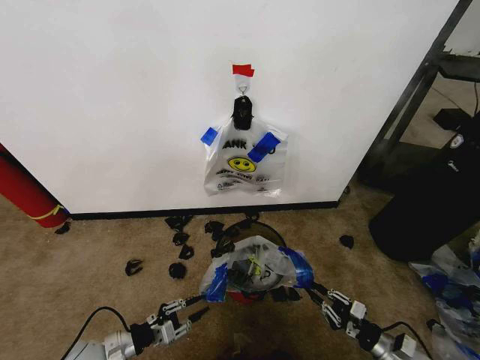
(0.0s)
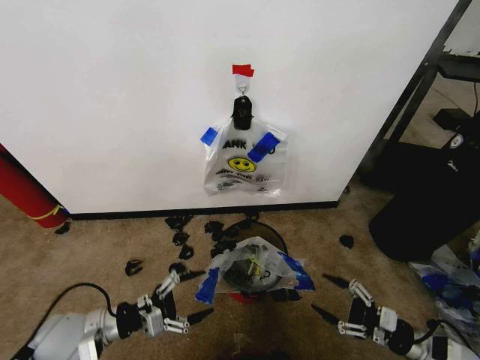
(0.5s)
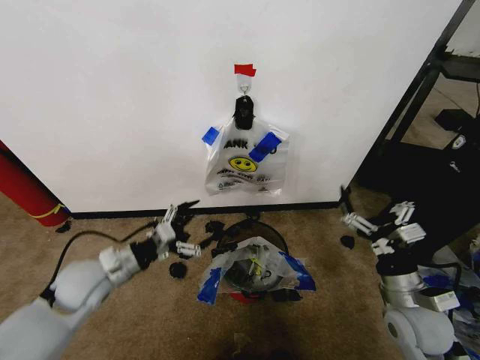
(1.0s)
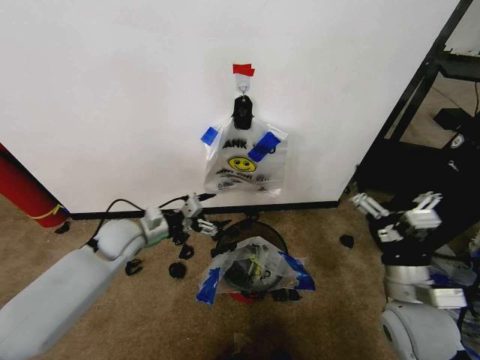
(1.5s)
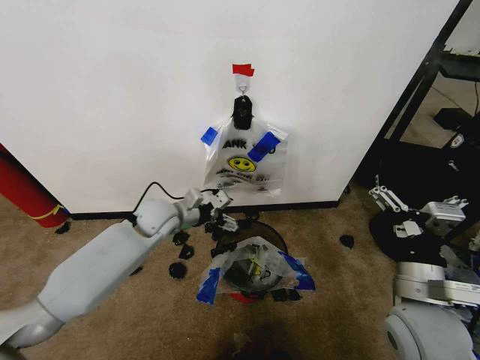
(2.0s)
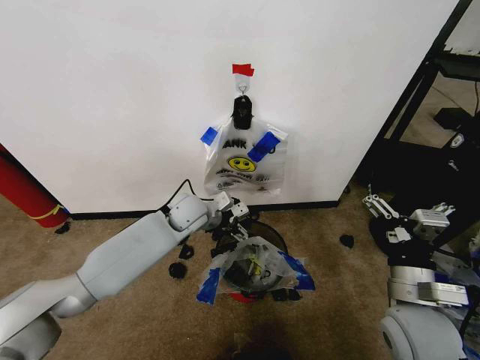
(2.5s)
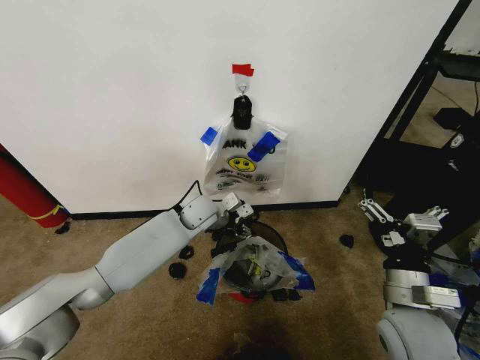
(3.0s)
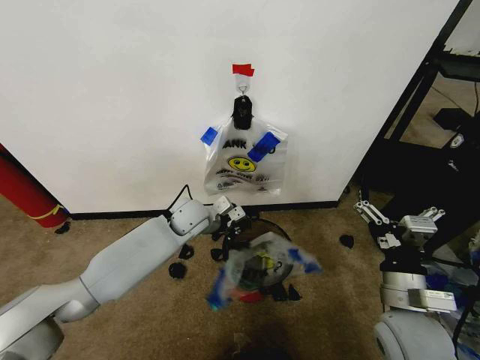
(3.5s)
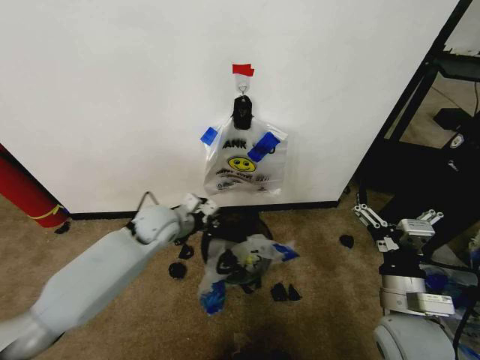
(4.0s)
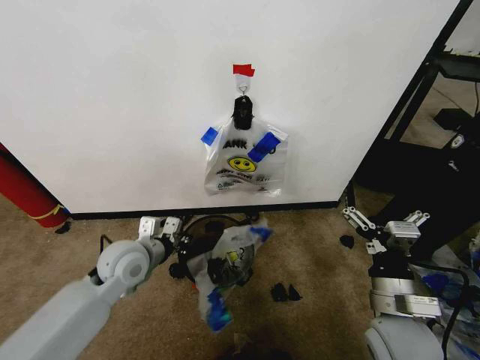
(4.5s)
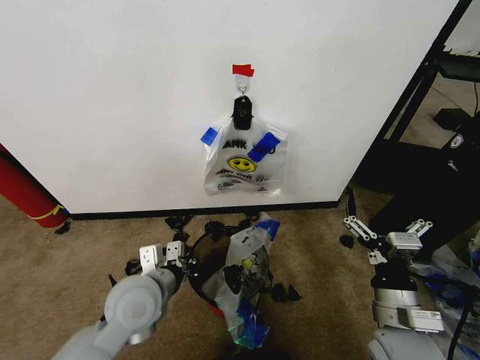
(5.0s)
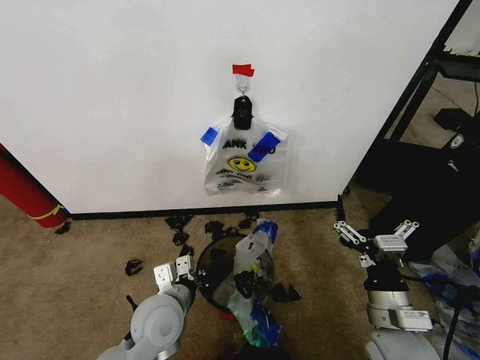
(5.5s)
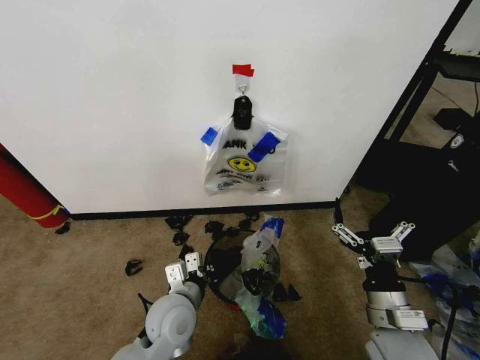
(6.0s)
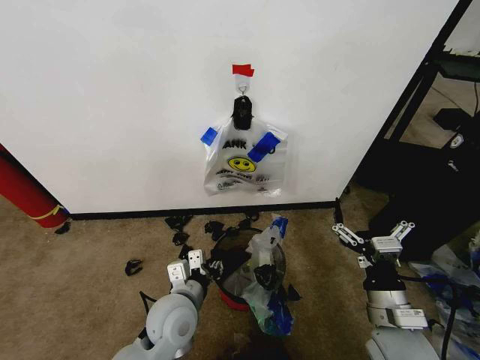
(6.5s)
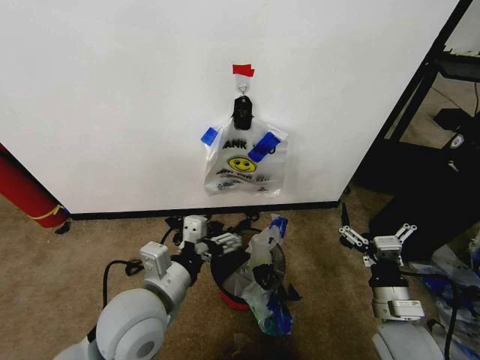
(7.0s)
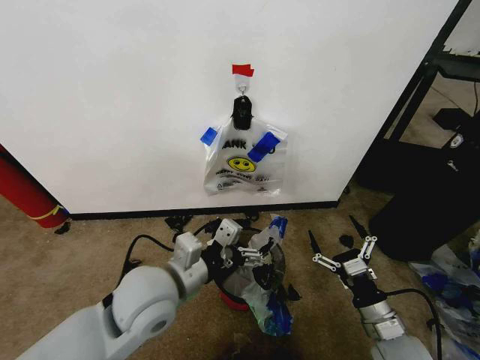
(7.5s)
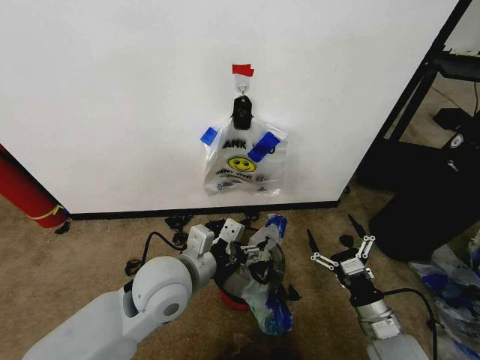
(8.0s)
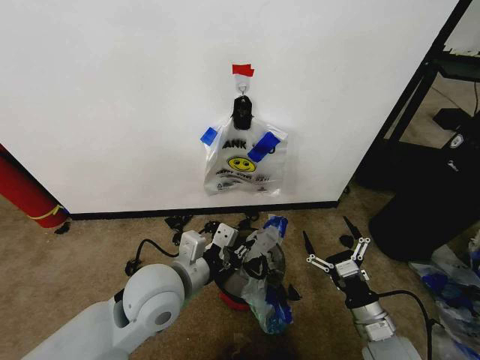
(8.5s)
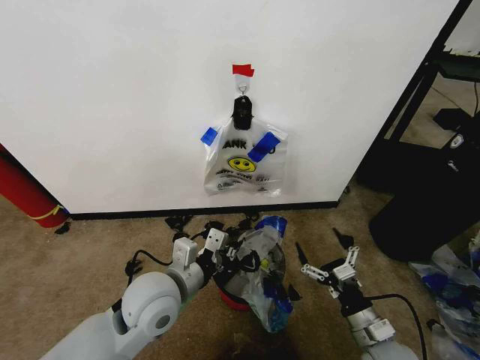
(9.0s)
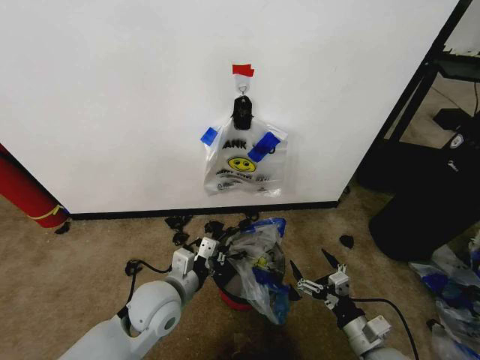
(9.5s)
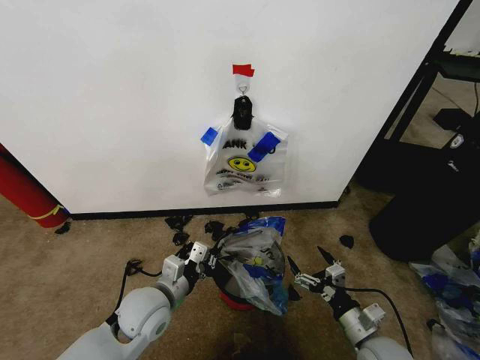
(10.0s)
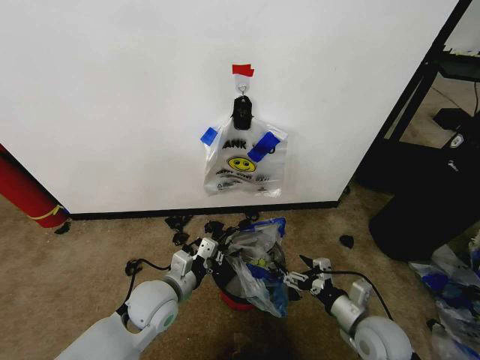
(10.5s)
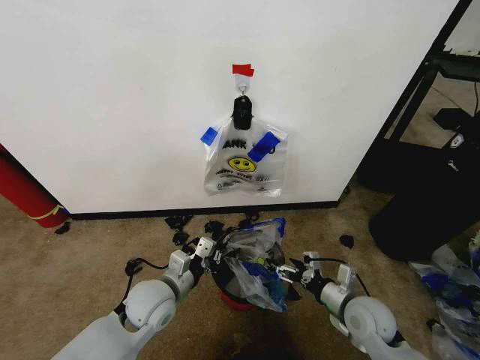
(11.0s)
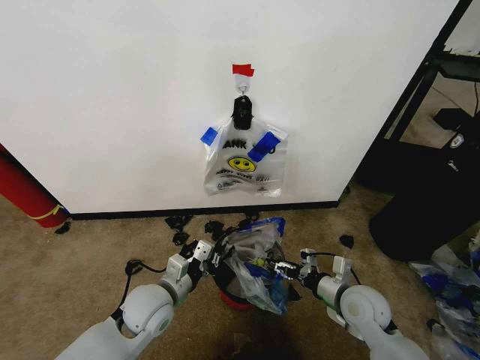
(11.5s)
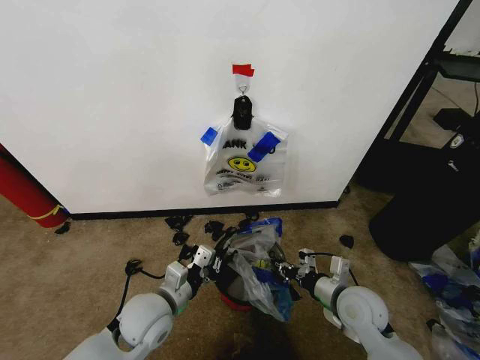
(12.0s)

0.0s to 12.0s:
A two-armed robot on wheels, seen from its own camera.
Task of the whole recording: Pick up the garbage bag from the wall and place it over the trash bin.
0.0s to 2.0s: The left gripper goes approximately 35 cm forward, upward and to the right, and opens its fingers. Meanwhile the right gripper heads upward and to the left, covering approximately 30 cm, and opens up.
2.0s to 4.0s: The left gripper travels to the right and back again, about 10 cm each way, and closes its fingers.
4.0s to 6.0s: The left gripper travels backward and downward by about 20 cm.
6.0s to 8.0s: The right gripper travels downward by some 5 cm, while the left gripper travels upward by approximately 10 cm, and opens up.
8.0s to 10.0s: The left gripper shifts some 15 cm downward and to the left, and closes up.
10.0s to 12.0s: The right gripper moves forward and upward, some 10 cm, and closes up.

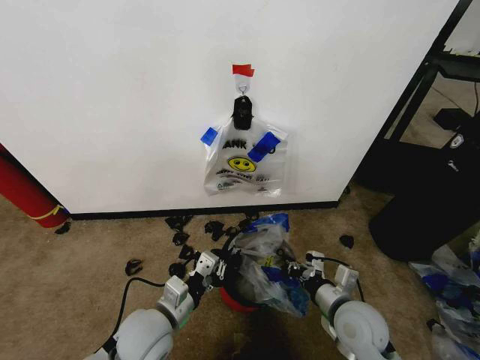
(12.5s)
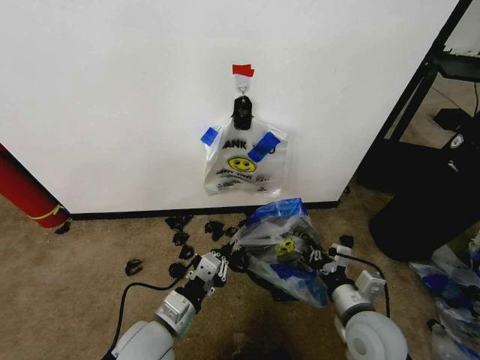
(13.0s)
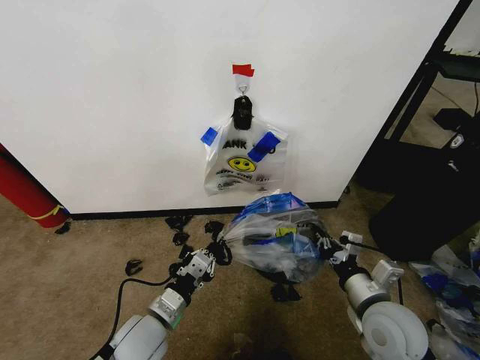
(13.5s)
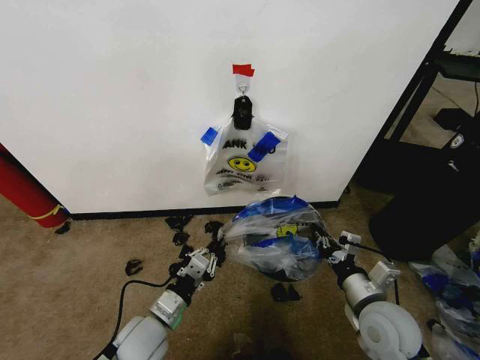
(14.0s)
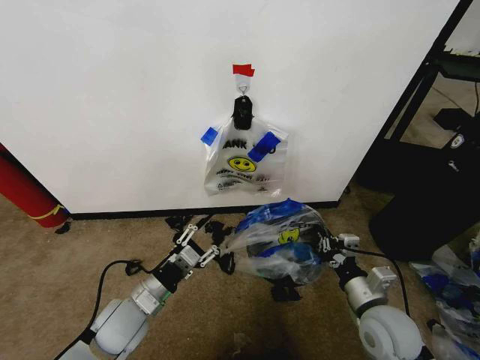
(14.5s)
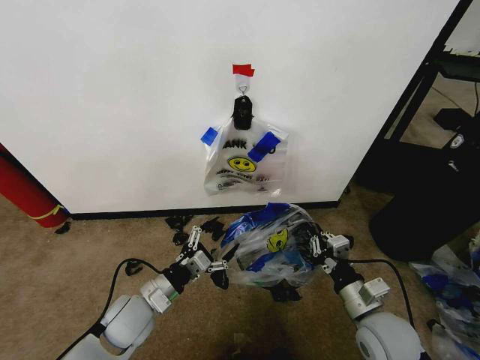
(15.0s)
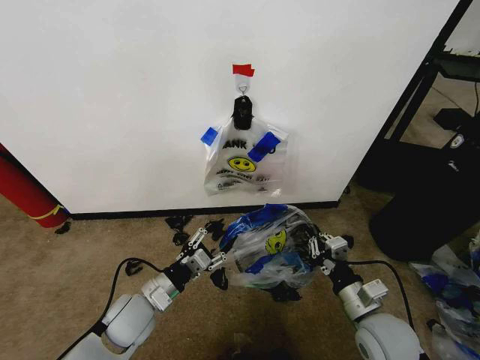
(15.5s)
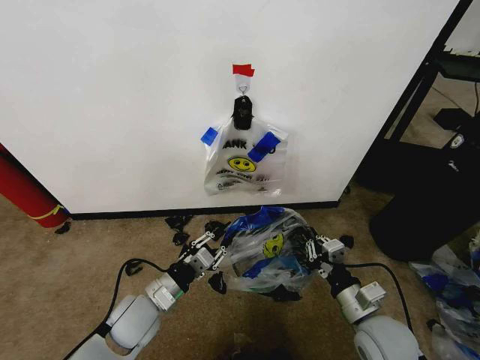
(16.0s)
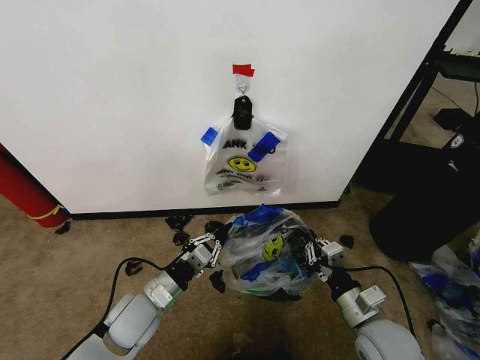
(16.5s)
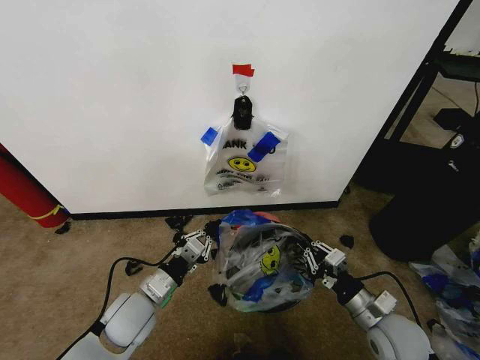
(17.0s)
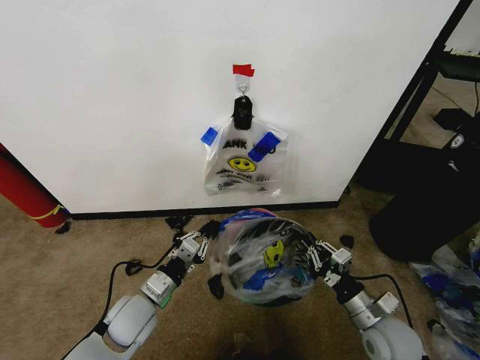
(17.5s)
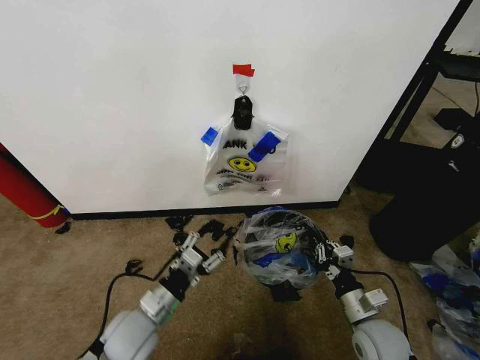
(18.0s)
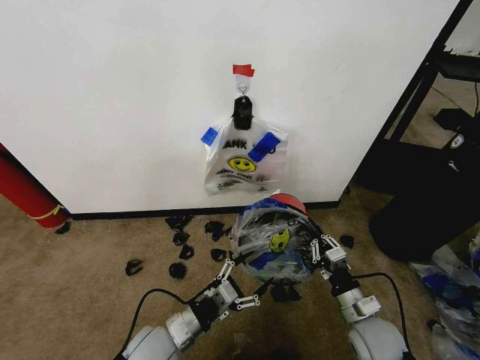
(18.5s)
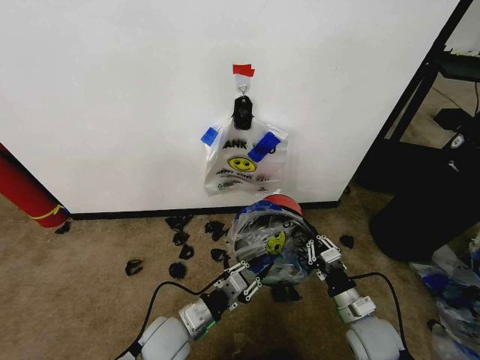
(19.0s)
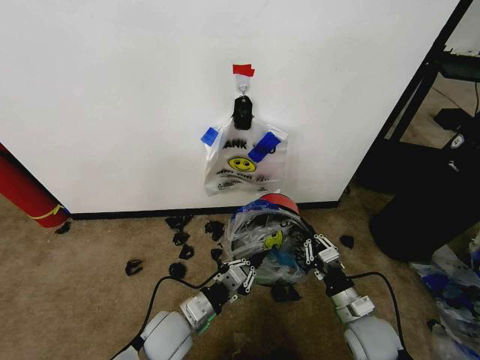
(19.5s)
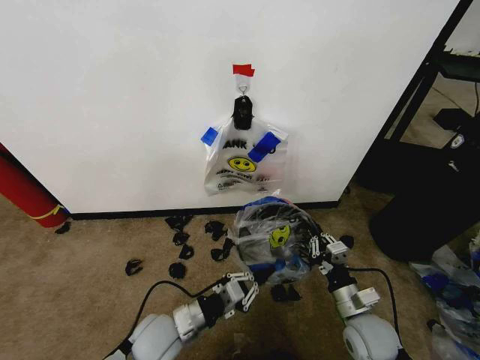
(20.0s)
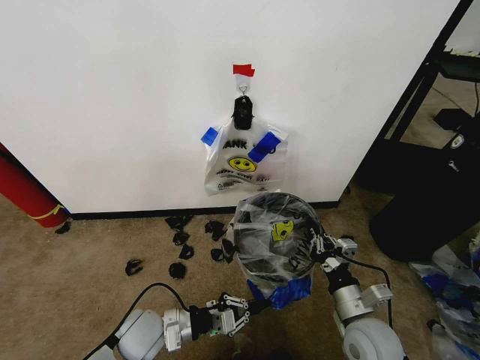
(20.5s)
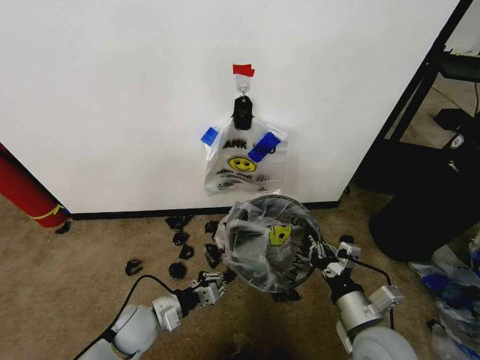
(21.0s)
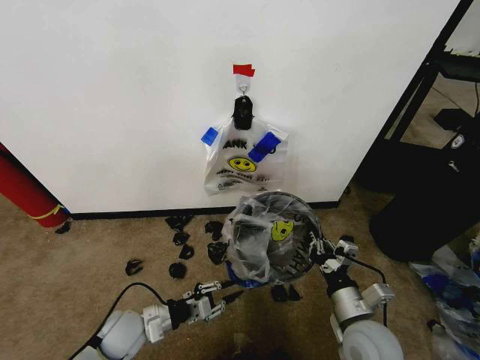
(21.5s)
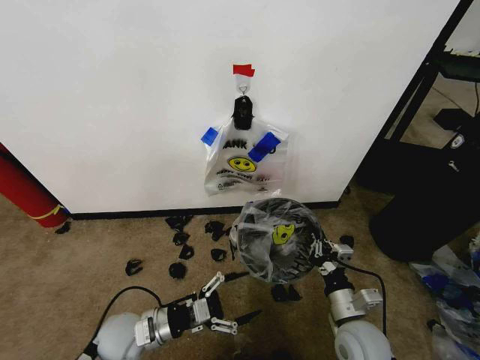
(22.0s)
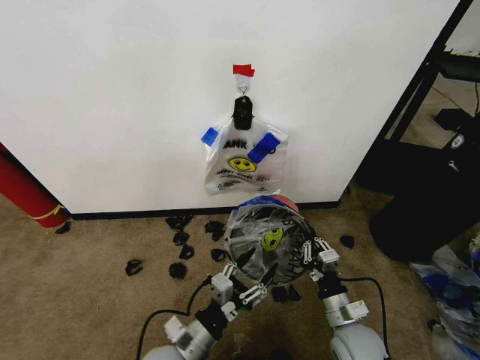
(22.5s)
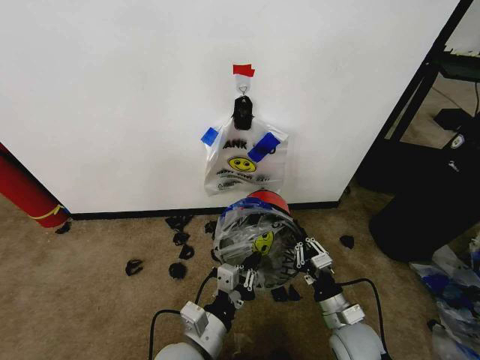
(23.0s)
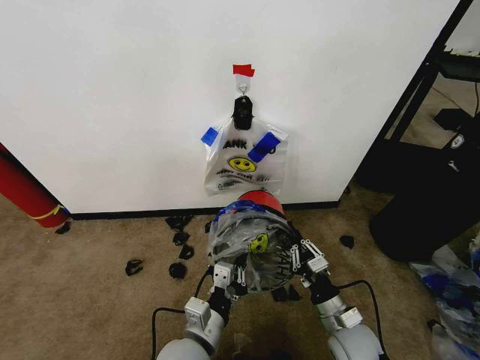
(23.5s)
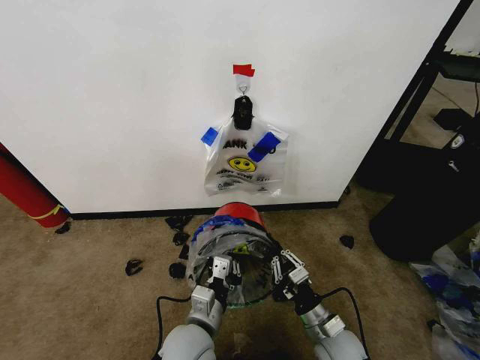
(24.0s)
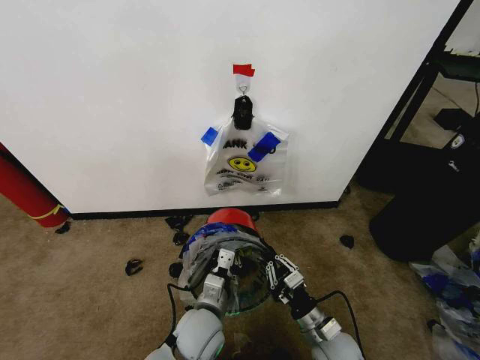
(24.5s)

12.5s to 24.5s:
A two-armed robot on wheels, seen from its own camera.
Task of the whole recording: Pick up the garbage bag from the wall and place it over the trash bin.
12.5s to 14.5s: The left gripper is displaced to the left by approximately 5 cm, and opens.
14.5s to 16.5s: The left gripper closes.
16.5s to 18.5s: The right gripper moves downward, some 5 cm. Meanwhile the left gripper shifts some 5 cm backward, and opens.
18.5s to 20.5s: The right gripper ends up about 5 cm from where it was. The left gripper ends up about 5 cm from where it was, and closes up.
20.5s to 22.5s: The left gripper shifts roughly 10 cm to the right and backward, and opens its fingers.
22.5s to 24.5s: The left gripper goes some 10 cm forward and to the right, and closes up. Meanwhile the right gripper ends up roughly 5 cm from where it was.

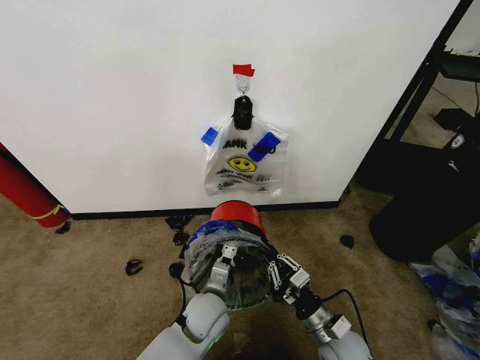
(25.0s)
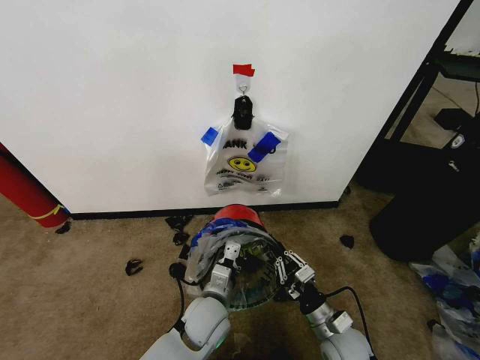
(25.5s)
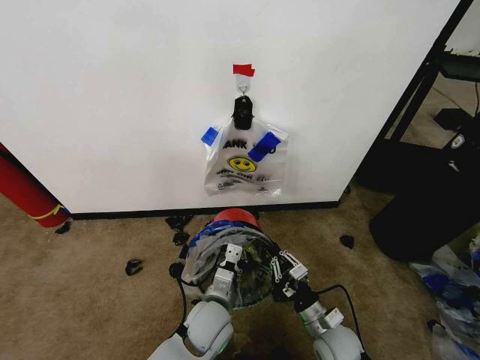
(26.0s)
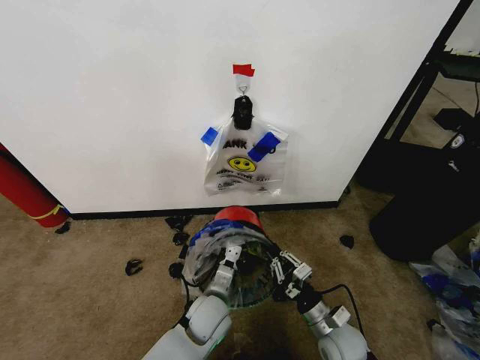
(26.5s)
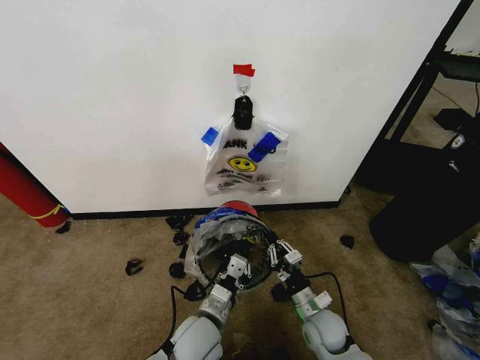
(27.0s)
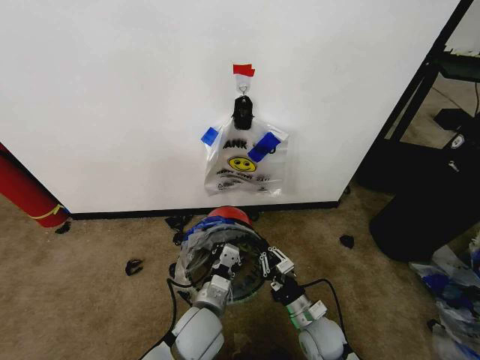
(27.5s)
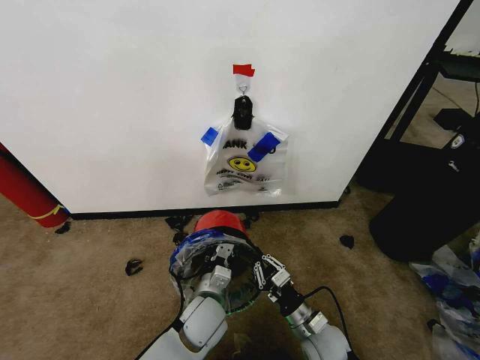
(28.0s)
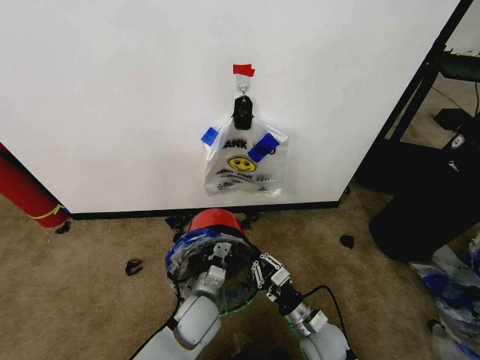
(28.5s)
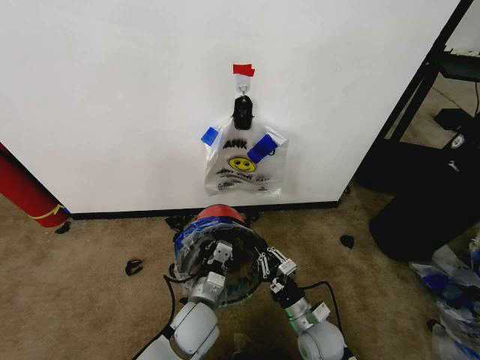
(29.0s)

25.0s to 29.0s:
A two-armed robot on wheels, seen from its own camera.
Task of the whole recording: Pick up the garbage bag from the wall and place it over the trash bin.
25.0s to 27.0s: The right gripper travels forward by approximately 5 cm. Meanwhile the left gripper goes roughly 5 cm backward.
